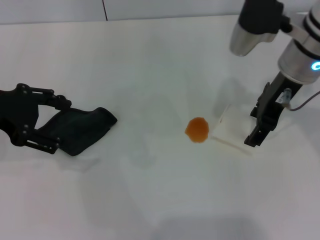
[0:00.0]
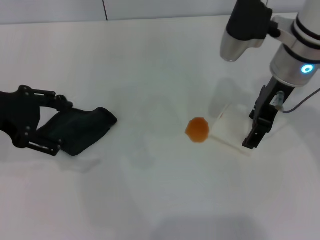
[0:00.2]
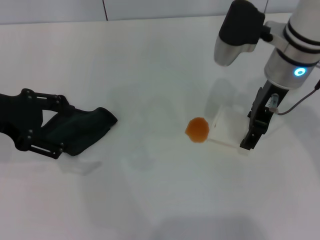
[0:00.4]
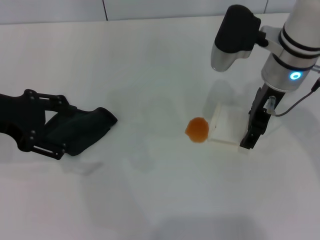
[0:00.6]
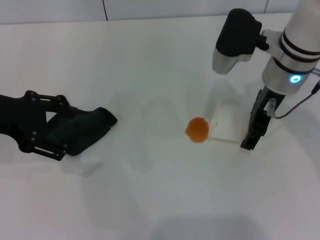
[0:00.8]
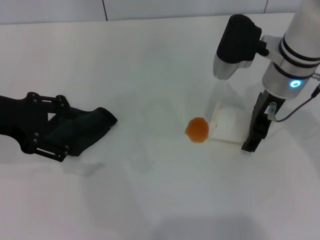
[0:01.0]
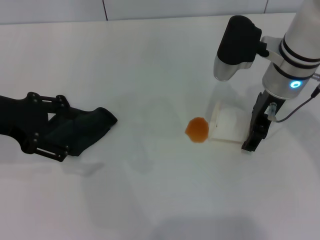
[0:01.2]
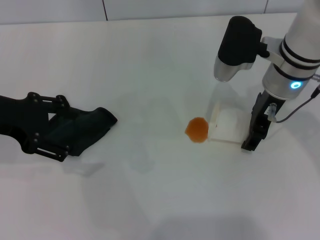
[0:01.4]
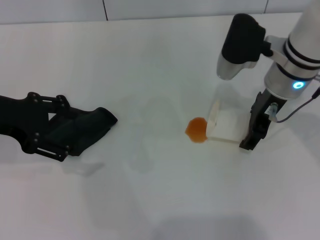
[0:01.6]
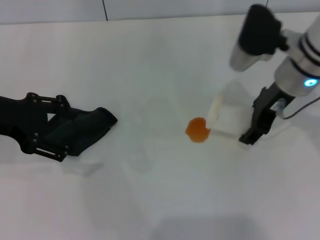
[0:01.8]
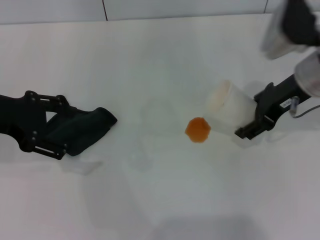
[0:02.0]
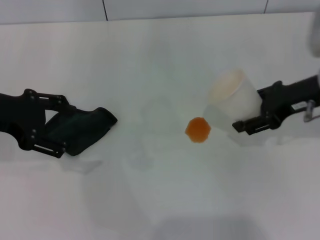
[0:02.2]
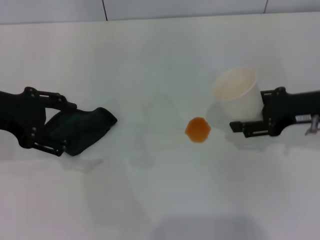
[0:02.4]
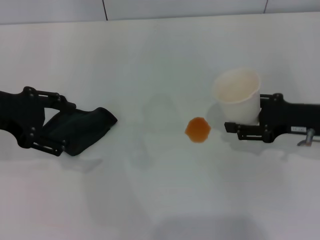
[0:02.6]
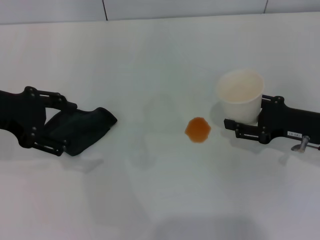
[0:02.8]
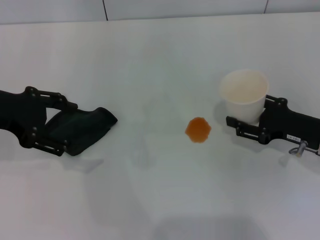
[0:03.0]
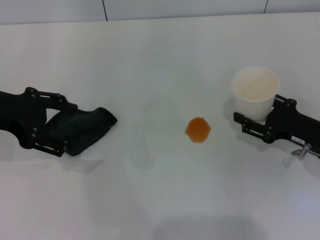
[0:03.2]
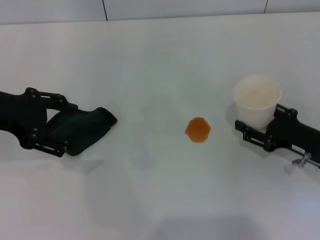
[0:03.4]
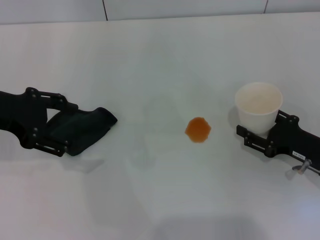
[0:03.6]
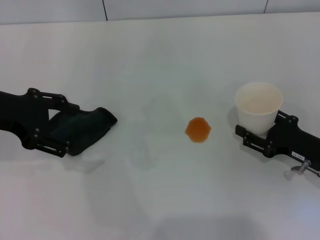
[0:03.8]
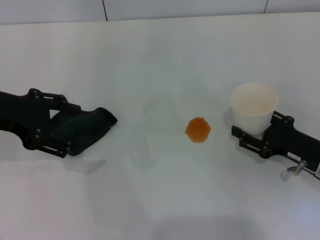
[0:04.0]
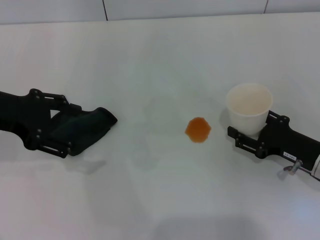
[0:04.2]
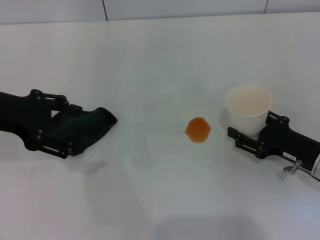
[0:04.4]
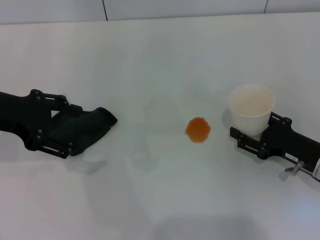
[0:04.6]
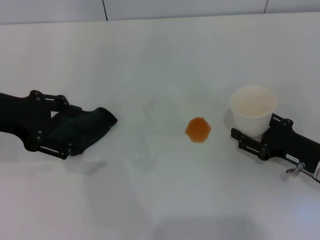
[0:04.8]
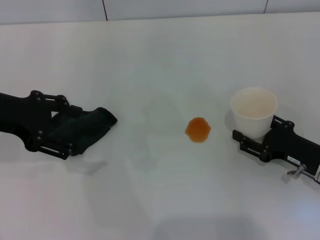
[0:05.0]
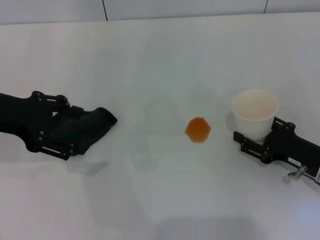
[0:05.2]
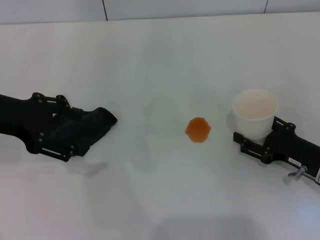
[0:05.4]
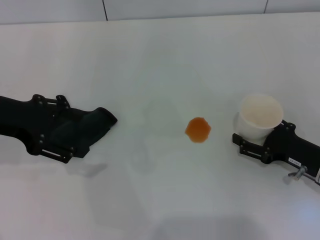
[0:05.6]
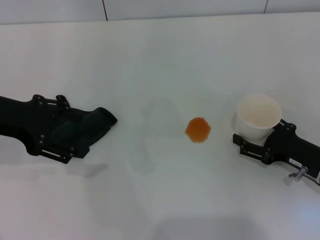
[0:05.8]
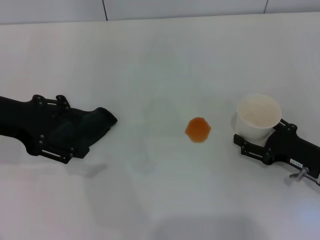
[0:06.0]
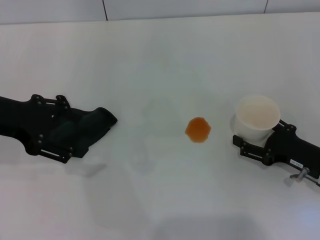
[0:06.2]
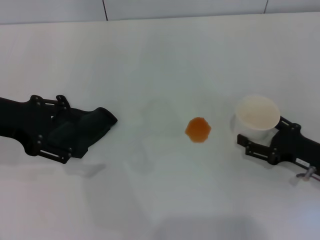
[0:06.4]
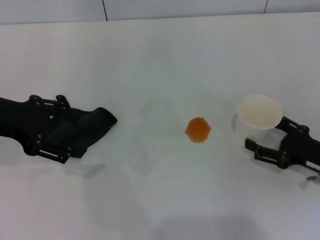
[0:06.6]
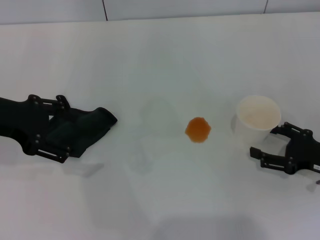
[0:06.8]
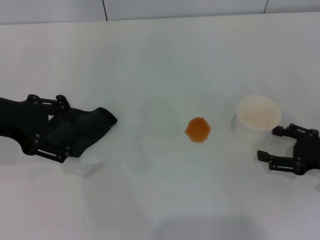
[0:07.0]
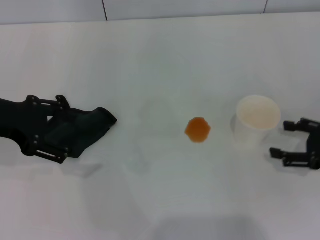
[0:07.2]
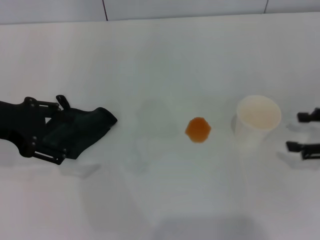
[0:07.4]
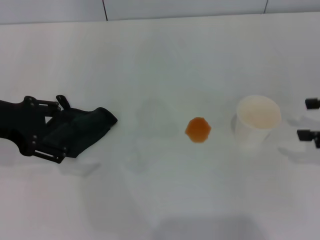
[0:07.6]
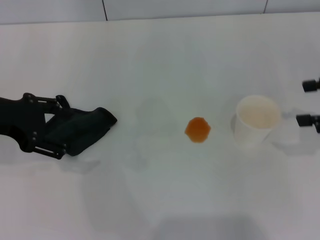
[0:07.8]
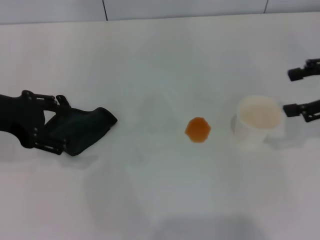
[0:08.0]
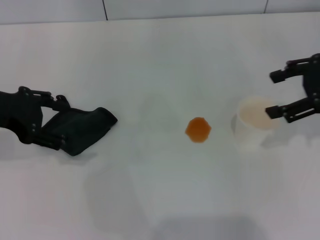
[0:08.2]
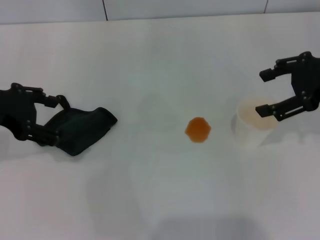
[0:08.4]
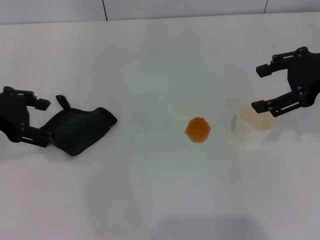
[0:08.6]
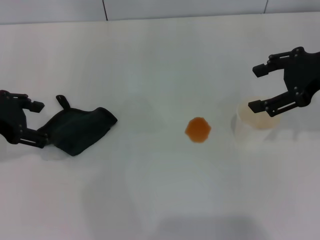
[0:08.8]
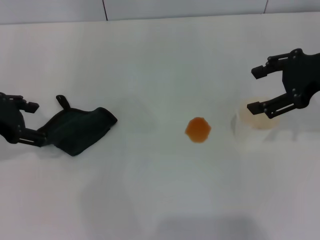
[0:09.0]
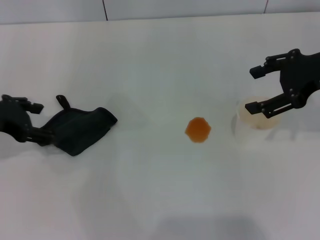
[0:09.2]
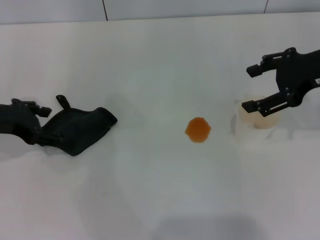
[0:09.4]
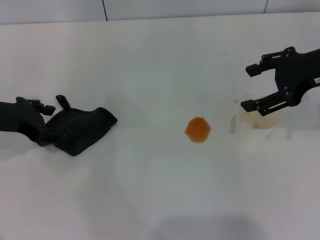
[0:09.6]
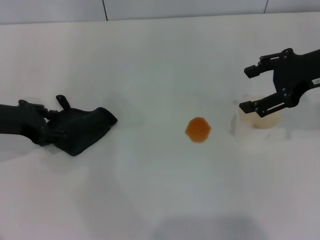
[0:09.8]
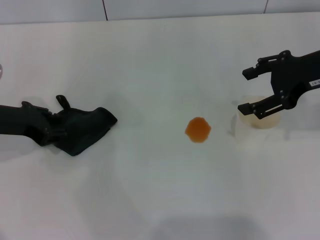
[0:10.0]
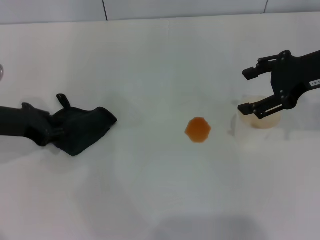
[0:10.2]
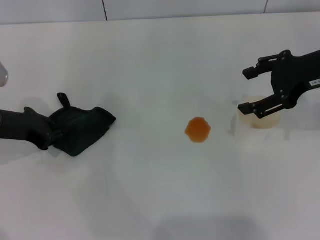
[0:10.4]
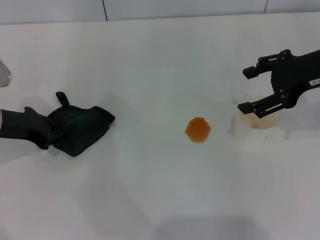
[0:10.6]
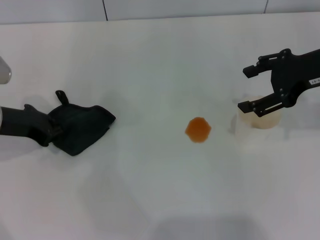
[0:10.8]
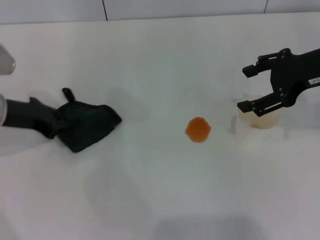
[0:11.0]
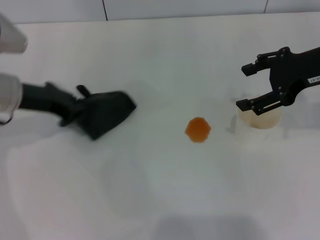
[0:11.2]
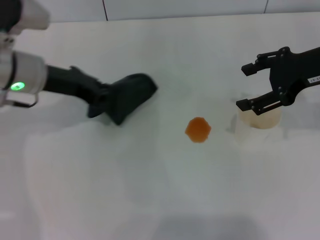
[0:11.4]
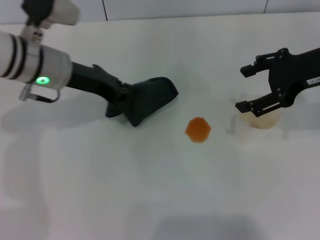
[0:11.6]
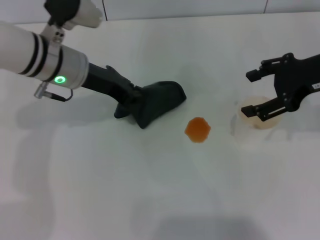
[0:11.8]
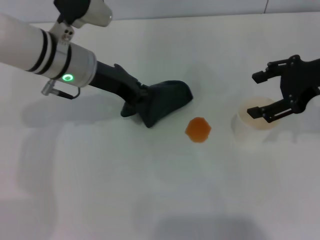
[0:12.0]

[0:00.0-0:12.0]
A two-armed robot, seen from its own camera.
Step, 0:01.4 to 0:07.0: Stand the paper cup upright with the right gripper.
Step, 0:07.2 to 0:11.0: Grasp the rag with the left gripper.
0:00.0 to 0:01.6: The right gripper closes its fingers.
0:01.6 to 0:03.0: The right gripper goes approximately 20 cm to the right, downward and backward.
0:03.0 to 0:04.4: The grippers move only a little.
0:04.4 to 0:06.0: The right gripper opens its fingers.
0:06.0 to 0:07.6: The right gripper is displaced upward and to the right by approximately 15 cm.
0:07.6 to 0:09.0: The right gripper goes roughly 10 cm to the left, upward and forward.
0:09.0 to 0:10.4: The left gripper travels downward by about 5 cm, and closes up.
0:10.4 to 0:12.0: The left gripper travels to the right and forward by roughly 15 cm.

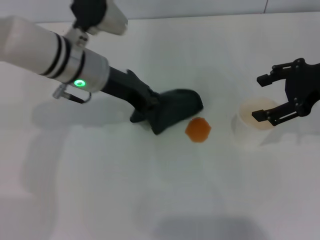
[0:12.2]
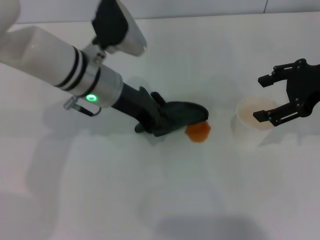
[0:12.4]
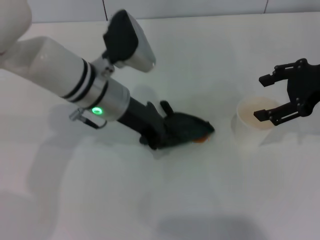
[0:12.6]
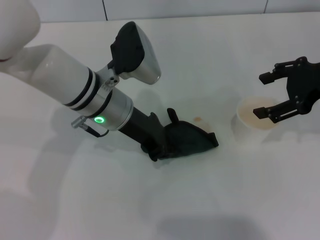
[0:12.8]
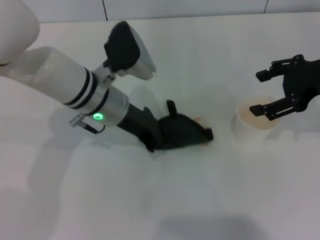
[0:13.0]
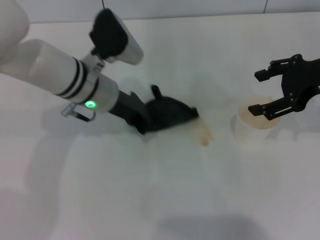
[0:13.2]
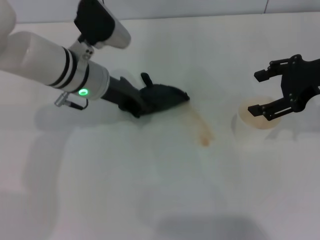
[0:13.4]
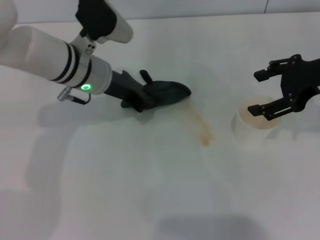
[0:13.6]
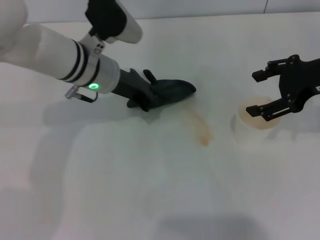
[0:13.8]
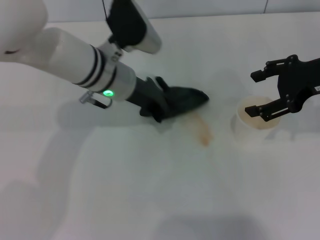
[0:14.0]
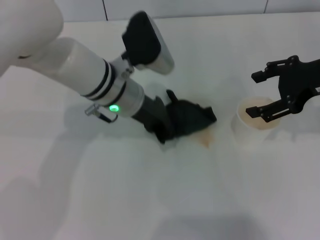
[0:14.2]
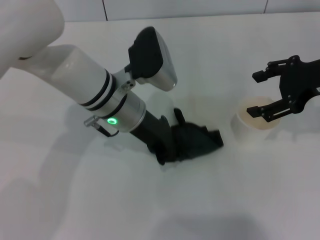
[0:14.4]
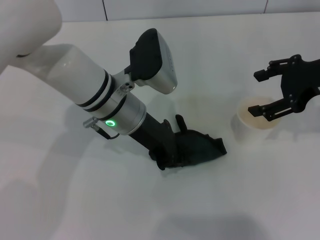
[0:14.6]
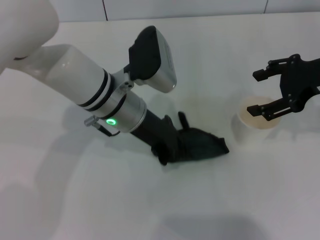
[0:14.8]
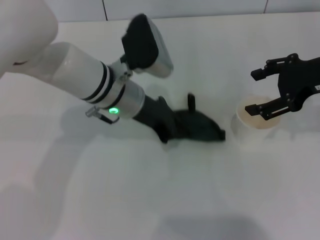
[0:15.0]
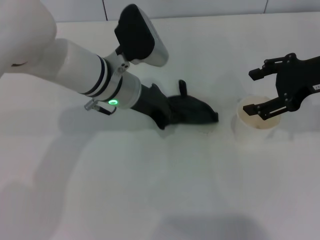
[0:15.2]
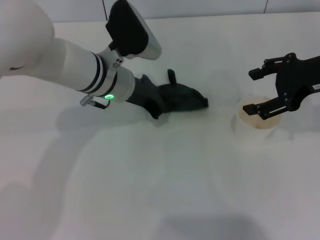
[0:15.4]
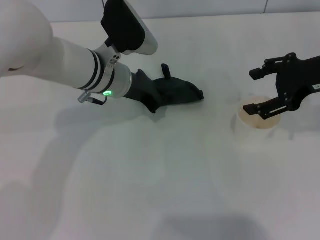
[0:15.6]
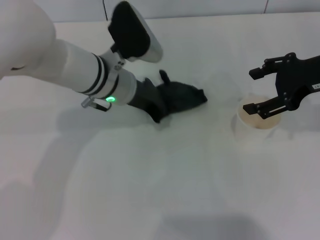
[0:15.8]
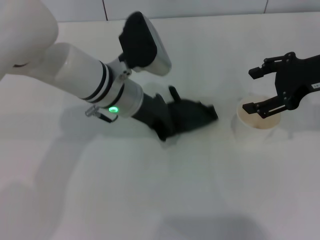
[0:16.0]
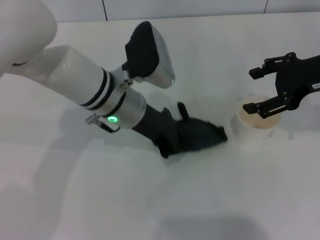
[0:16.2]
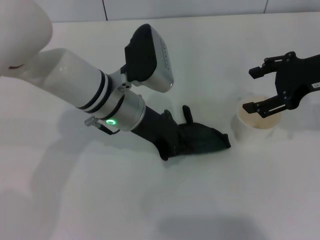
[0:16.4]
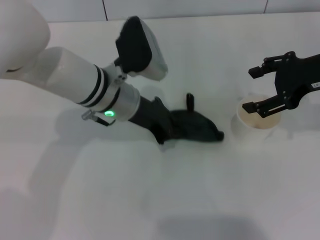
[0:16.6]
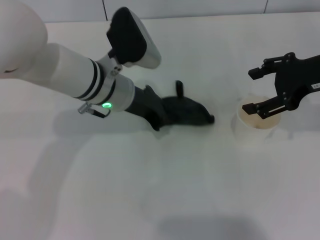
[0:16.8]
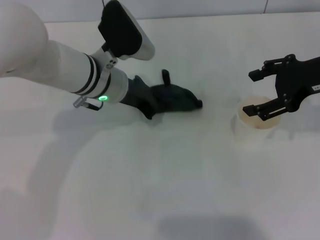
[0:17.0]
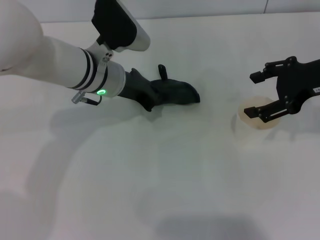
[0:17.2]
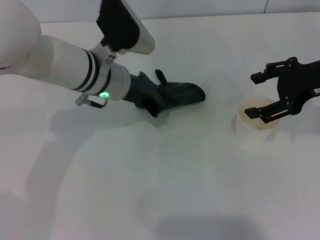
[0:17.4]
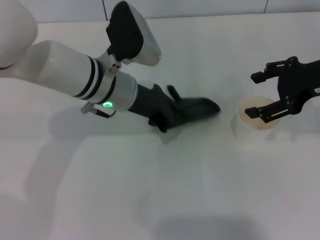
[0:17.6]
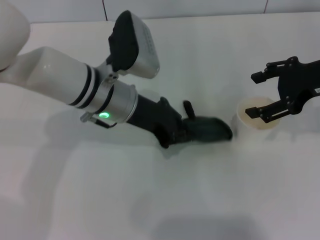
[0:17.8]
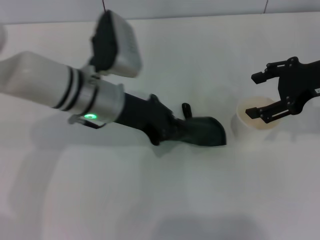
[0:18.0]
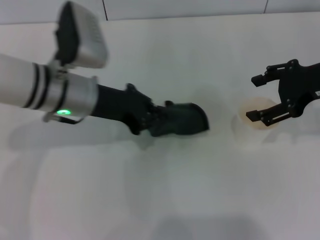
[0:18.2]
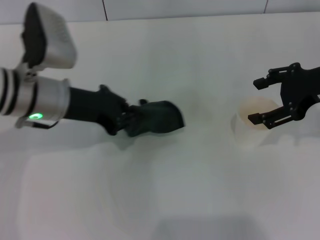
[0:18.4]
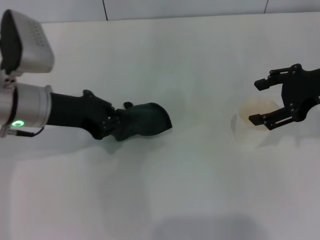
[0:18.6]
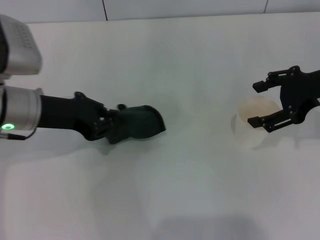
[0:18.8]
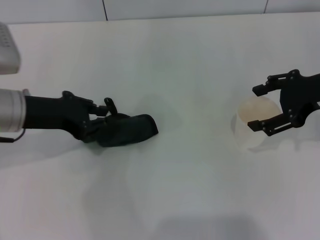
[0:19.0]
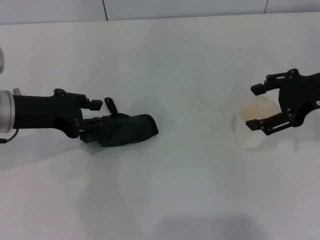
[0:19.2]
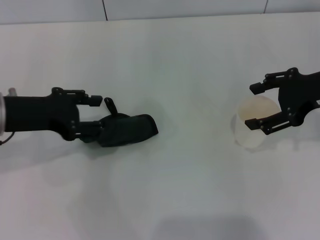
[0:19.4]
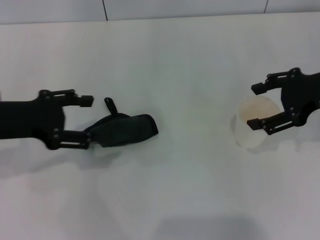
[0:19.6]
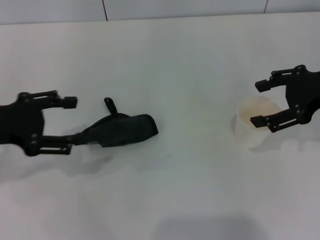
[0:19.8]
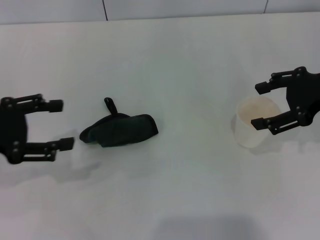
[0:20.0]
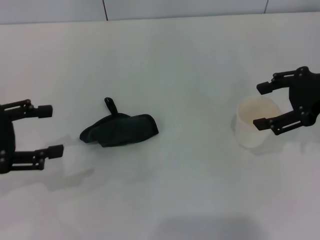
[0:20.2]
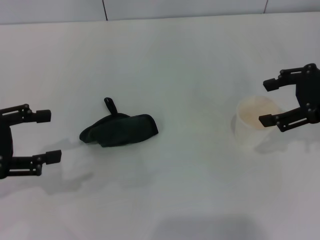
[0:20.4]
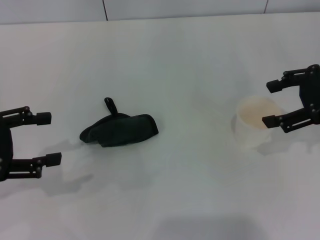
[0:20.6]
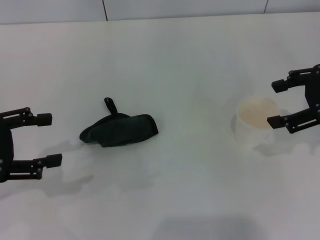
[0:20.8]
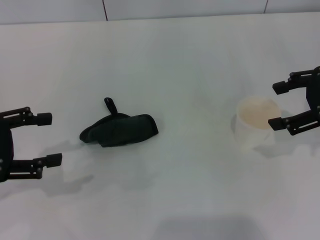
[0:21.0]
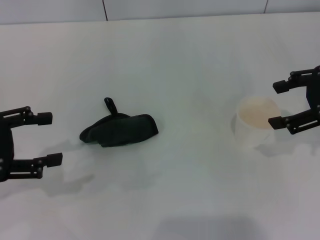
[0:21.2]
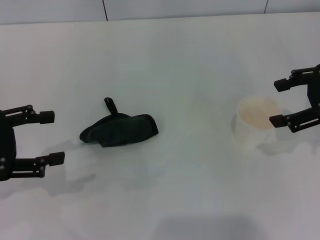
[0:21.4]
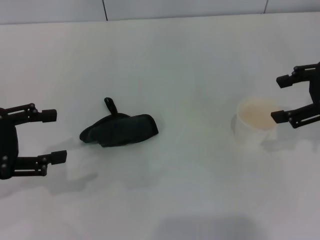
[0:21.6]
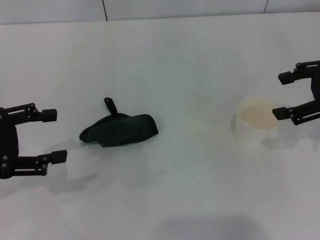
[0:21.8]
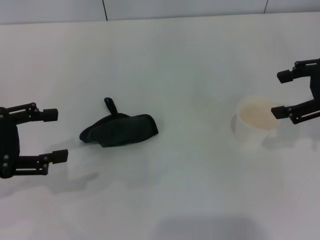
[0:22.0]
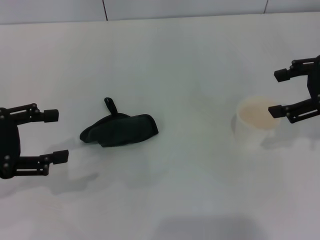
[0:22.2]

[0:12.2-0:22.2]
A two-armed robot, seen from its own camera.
Step, 0:12.2 to 0:18.6: Wipe the stains off the table with the left gripper.
Step, 0:18.8 to 0:19.8: Place the rag on the table with the left gripper.
0:12.2 to 0:13.6: The grippers make only small movements.
0:13.6 to 0:15.0: The left gripper moves approximately 5 cm.
0:15.0 to 0:16.4: The grippers stay close to where they were, moving slightly.
0:18.0 to 0:19.4: The left gripper travels to the left by approximately 15 cm, and opens up.
0:19.4 to 0:20.8: The left gripper shifts roughly 10 cm to the left and backward, and opens up.
0:20.8 to 0:22.2: Both grippers stay put.
